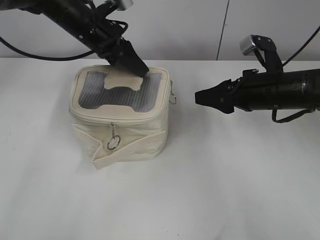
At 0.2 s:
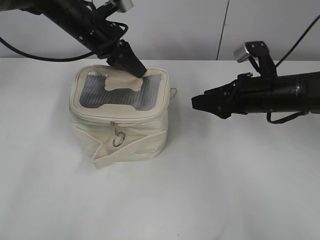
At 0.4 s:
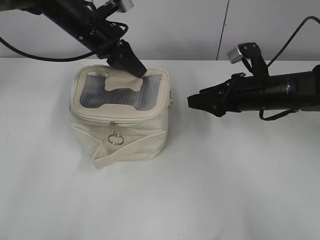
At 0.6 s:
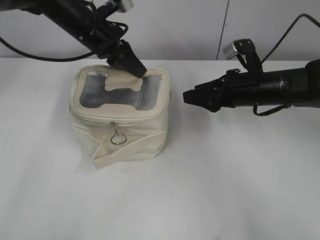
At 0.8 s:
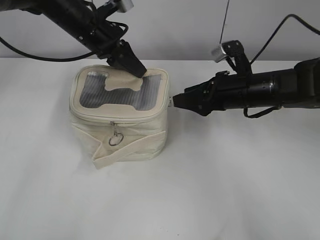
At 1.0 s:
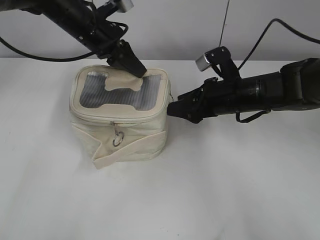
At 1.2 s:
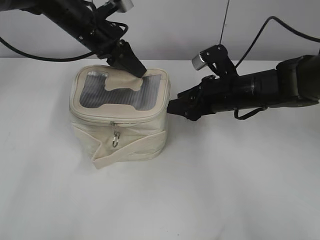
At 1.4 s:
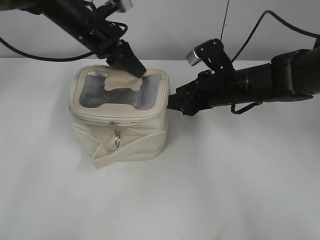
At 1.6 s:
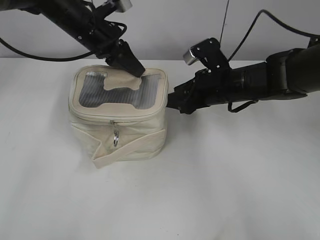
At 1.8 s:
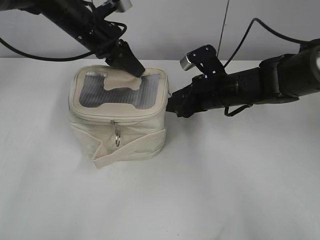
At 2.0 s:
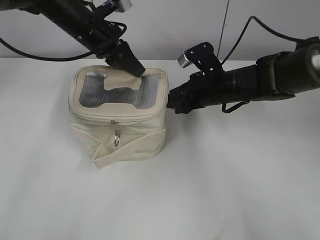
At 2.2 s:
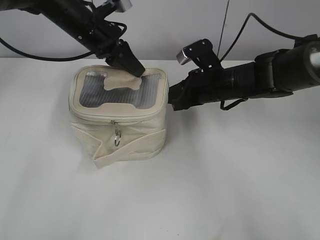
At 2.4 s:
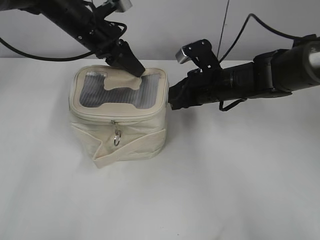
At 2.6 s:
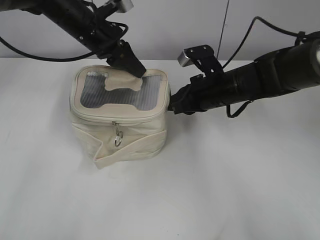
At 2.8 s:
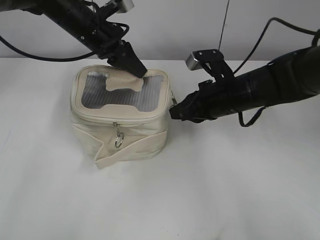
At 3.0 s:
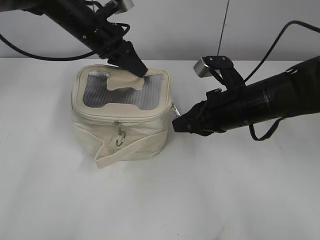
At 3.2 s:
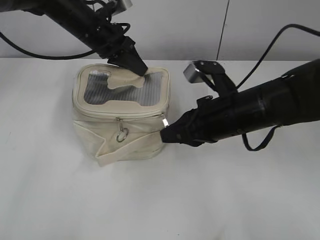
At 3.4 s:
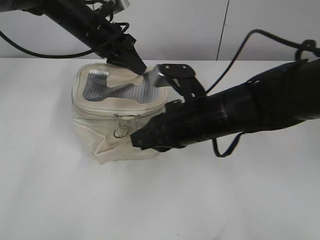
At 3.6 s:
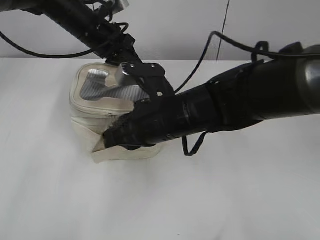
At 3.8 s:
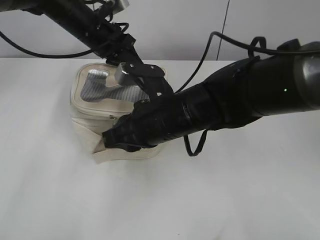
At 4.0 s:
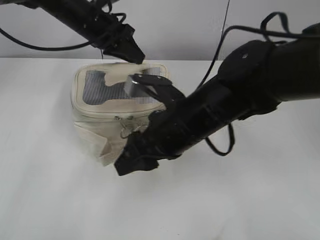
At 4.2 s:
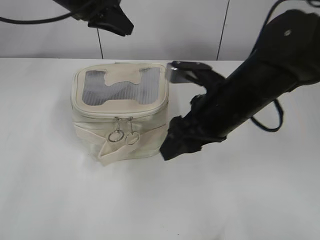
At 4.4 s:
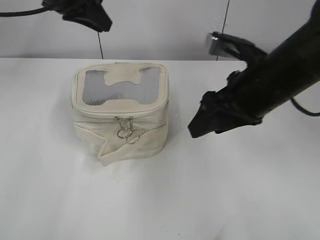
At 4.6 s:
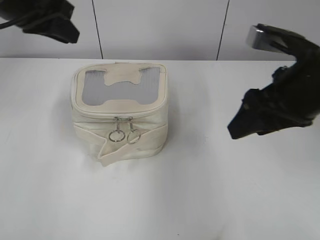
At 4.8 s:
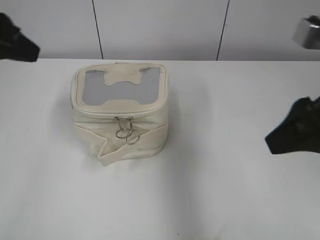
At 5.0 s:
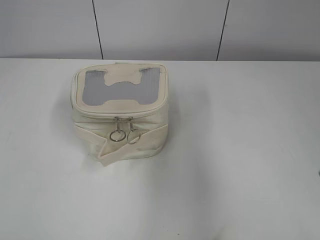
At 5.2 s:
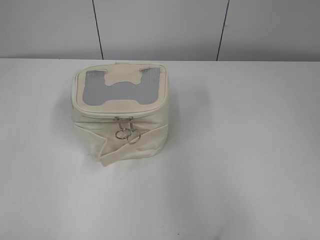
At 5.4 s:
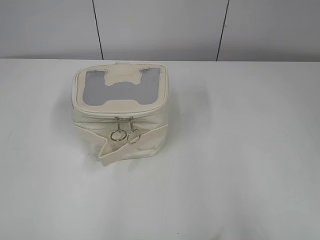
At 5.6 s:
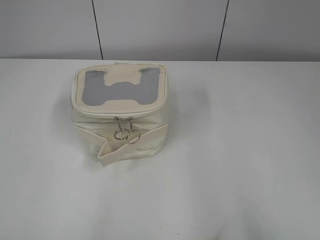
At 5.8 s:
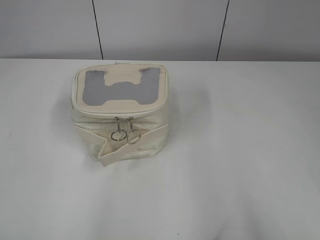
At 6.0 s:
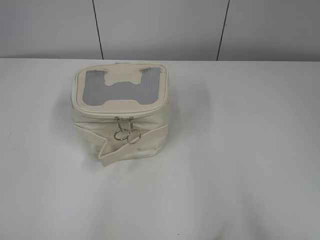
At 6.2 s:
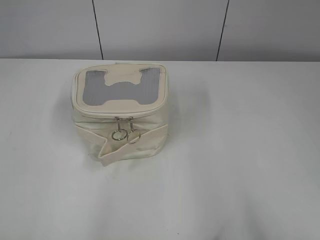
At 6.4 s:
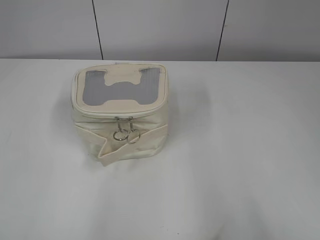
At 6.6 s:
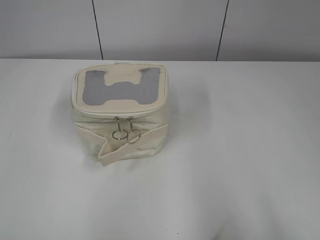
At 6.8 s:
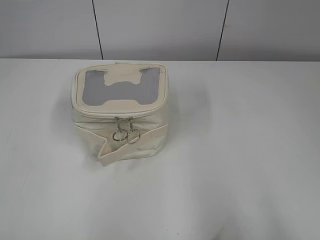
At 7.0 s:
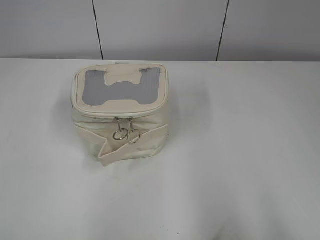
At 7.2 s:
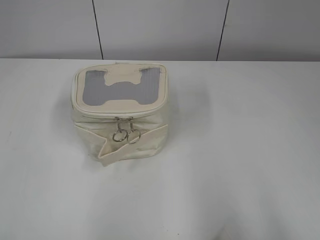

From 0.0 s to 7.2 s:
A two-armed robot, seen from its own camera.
Step, from 0.0 s to 3.6 s: Zip up the bag with your right hand.
From 0.0 s to 1.4 s: The left gripper closes; the right gripper heads to the left, covering approximately 5 cm.
From 1.4 s to 2.8 s: The right gripper closes.
From 2.8 s to 4.4 s: The left gripper is displaced upward by roughly 10 cm. Meanwhile the right gripper heads upward and backward, covering approximately 10 cm, moves approximately 10 cm to the left and comes back, and opens.
From 4.4 s to 5.8 s: The right gripper travels backward and to the right by roughly 35 cm. Meanwhile the left gripper travels backward by approximately 40 cm, and opens.
